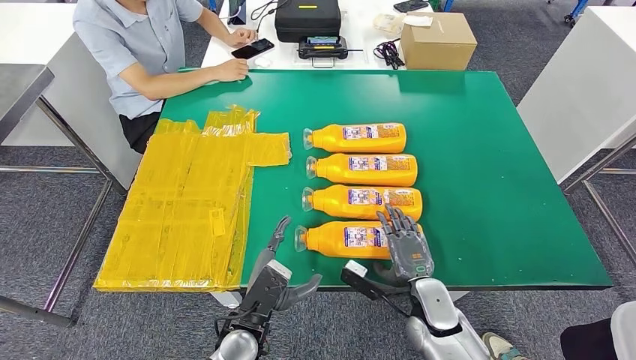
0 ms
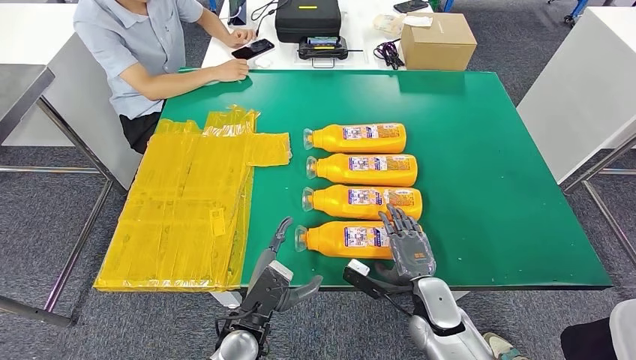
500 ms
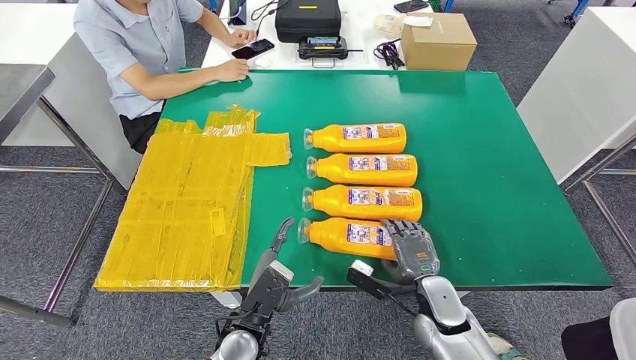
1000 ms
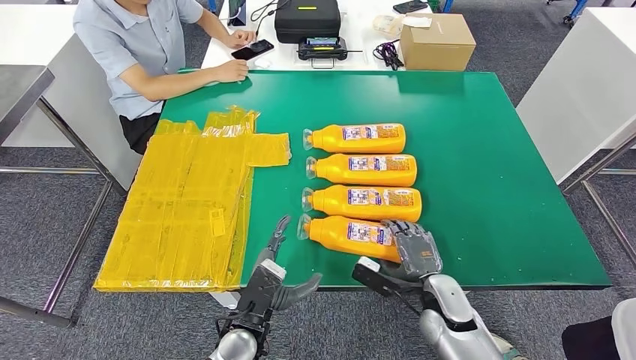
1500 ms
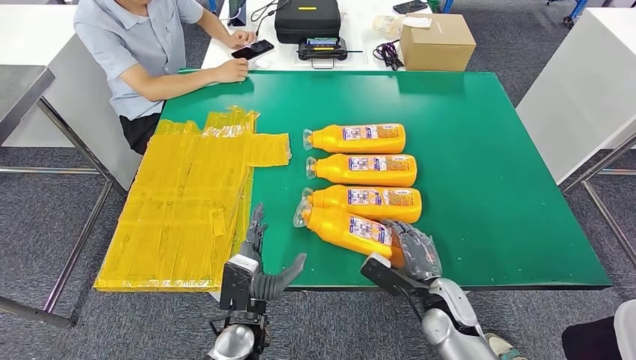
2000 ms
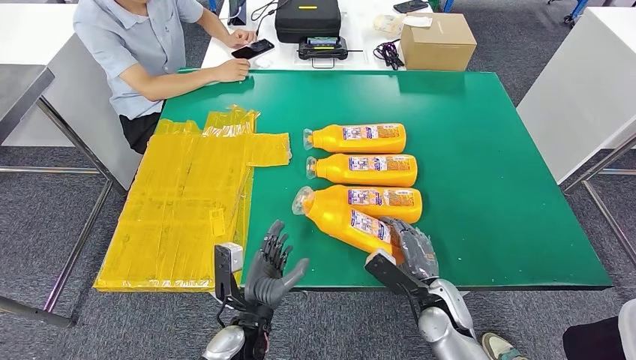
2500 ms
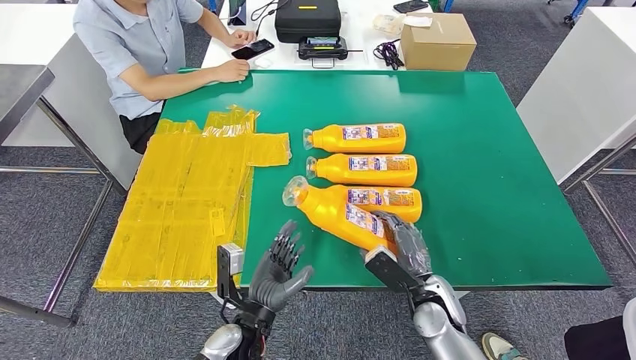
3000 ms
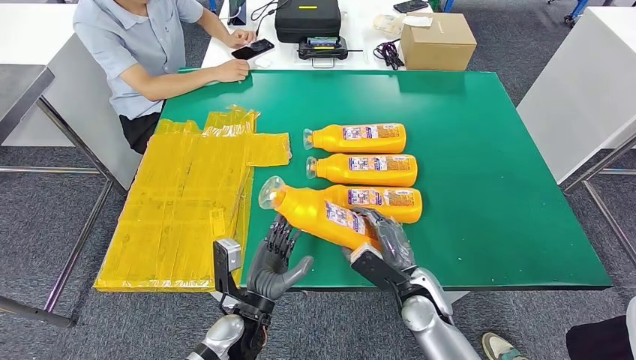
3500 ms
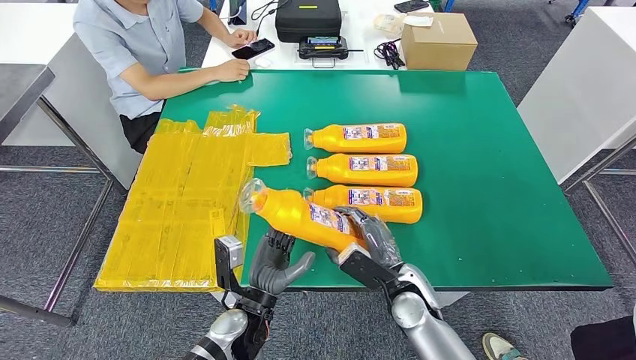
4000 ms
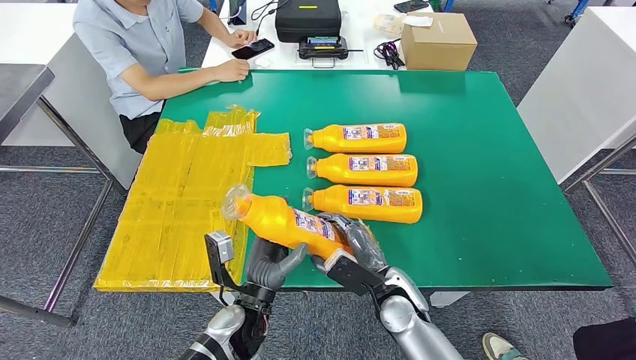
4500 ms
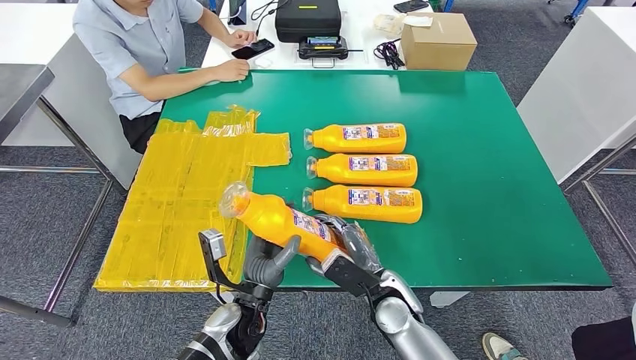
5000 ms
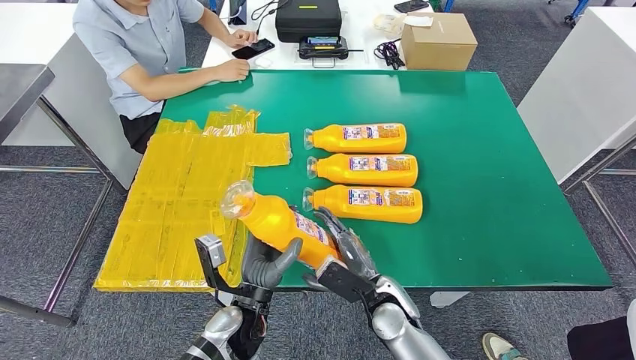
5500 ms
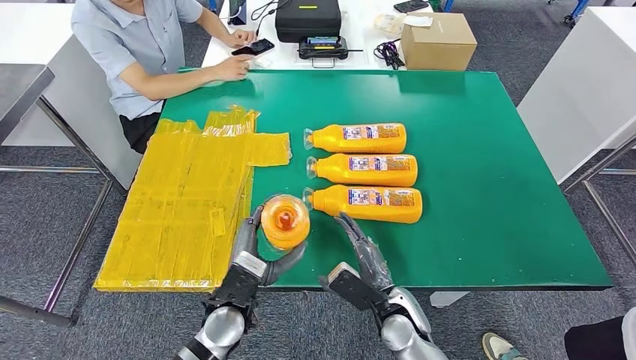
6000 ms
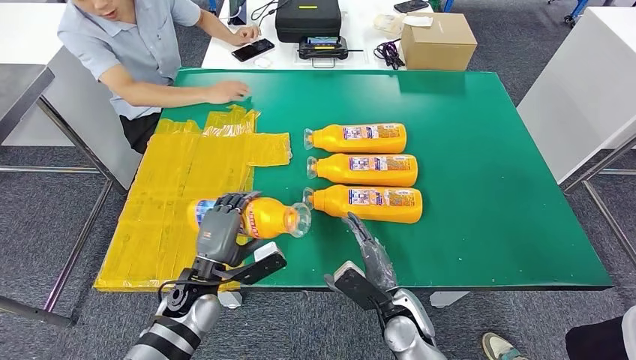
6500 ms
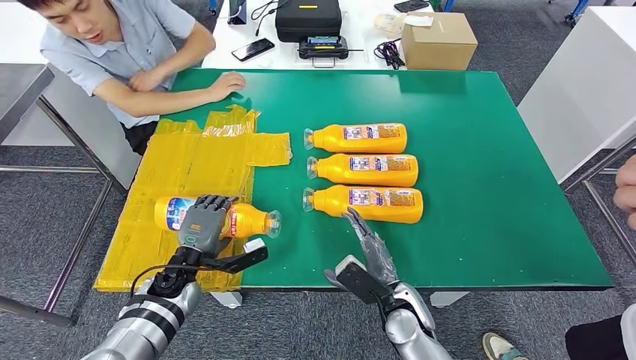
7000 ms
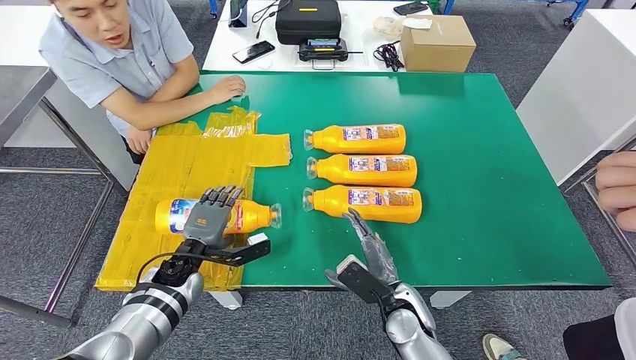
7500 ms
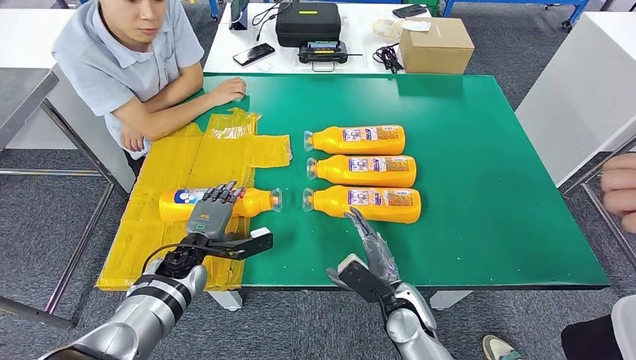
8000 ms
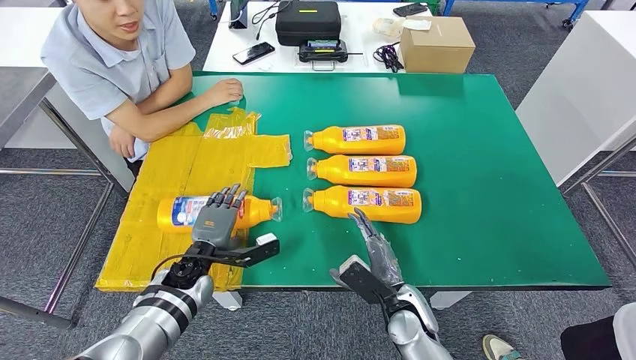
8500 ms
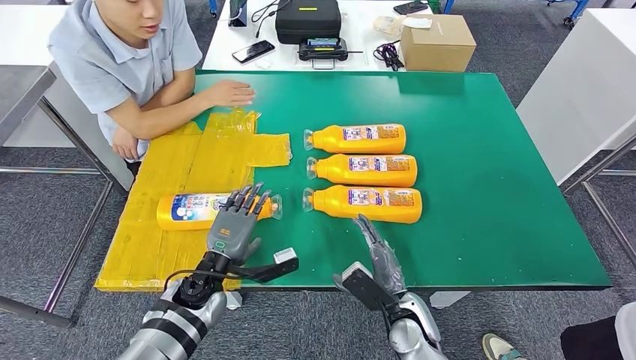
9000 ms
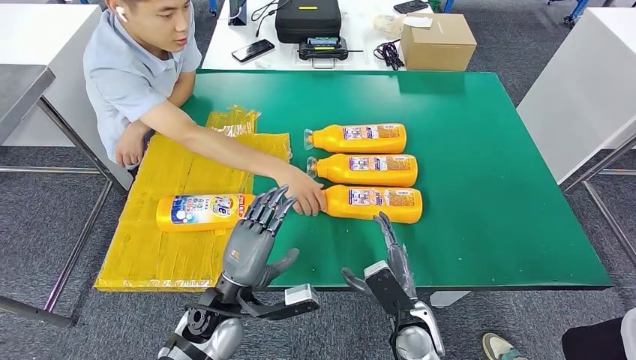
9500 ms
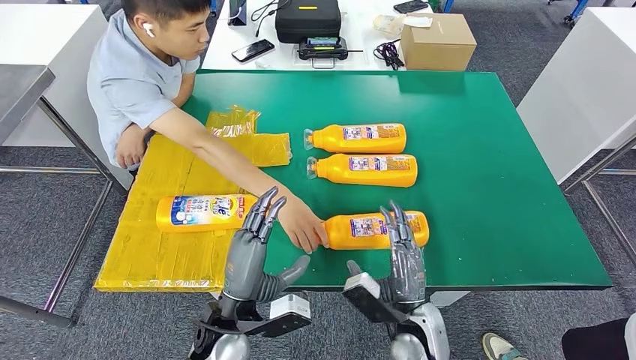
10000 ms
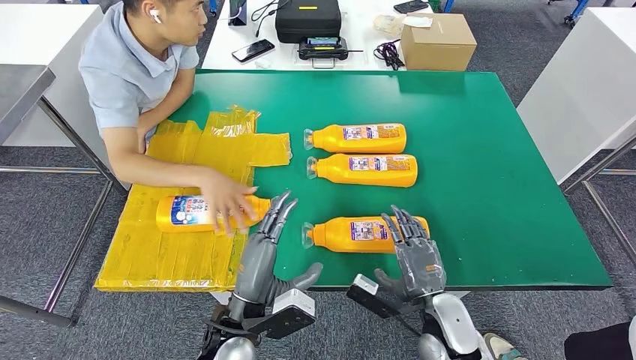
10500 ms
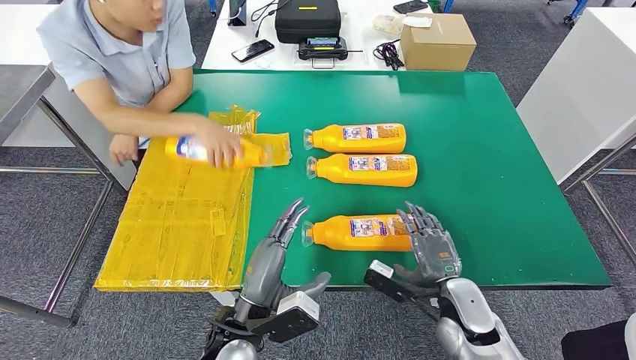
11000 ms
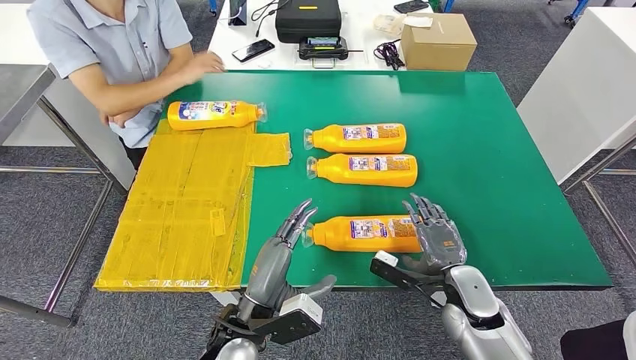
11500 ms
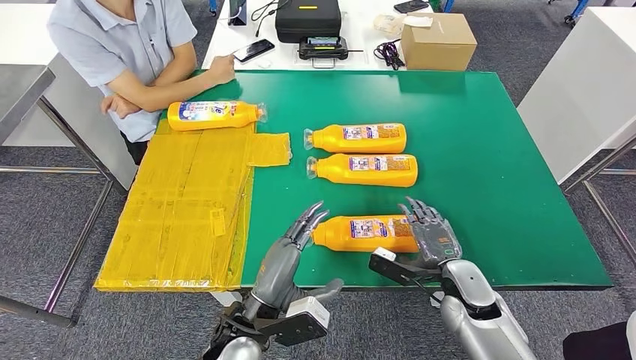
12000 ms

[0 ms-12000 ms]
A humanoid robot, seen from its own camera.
Step, 0 ms to 5000 ms: Take the bottle from the table.
Step, 6500 ms to 9000 ms: Flip the bottle to face forward.
2000 ms to 4000 ms: The right hand shifts roughly 5 cm to the left.

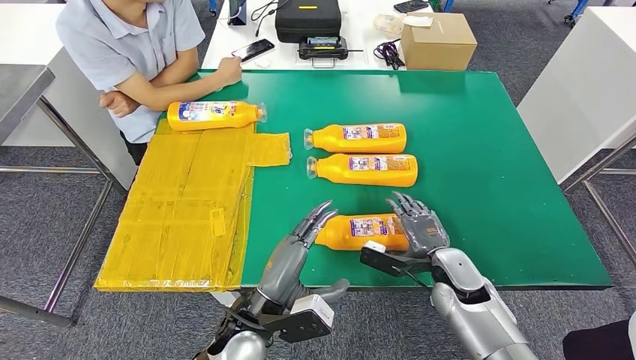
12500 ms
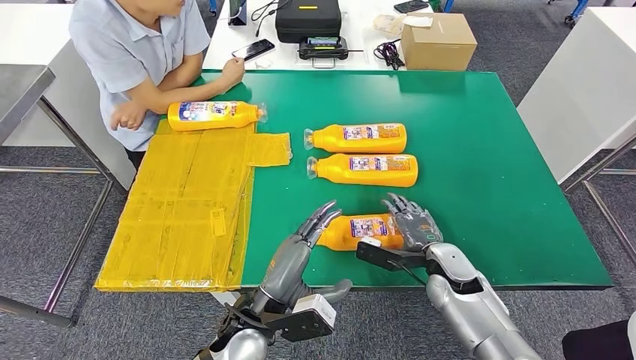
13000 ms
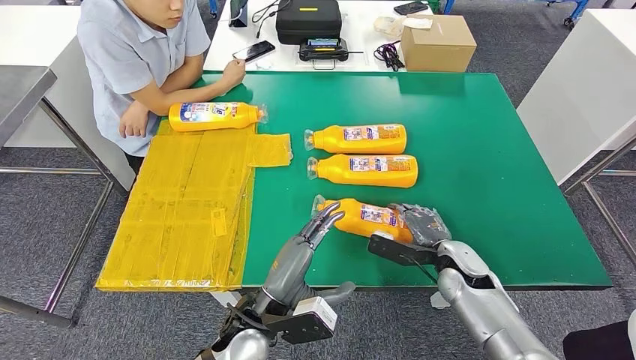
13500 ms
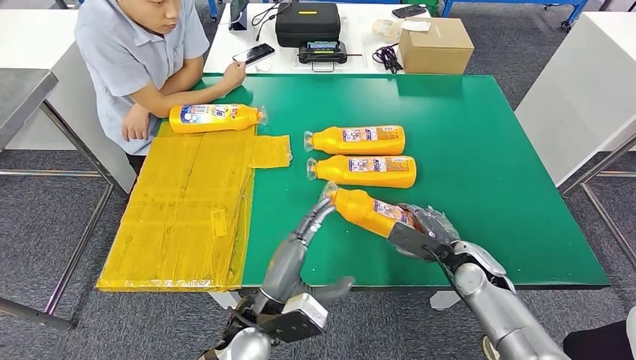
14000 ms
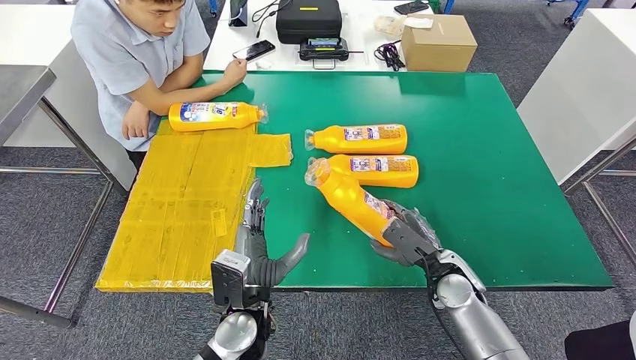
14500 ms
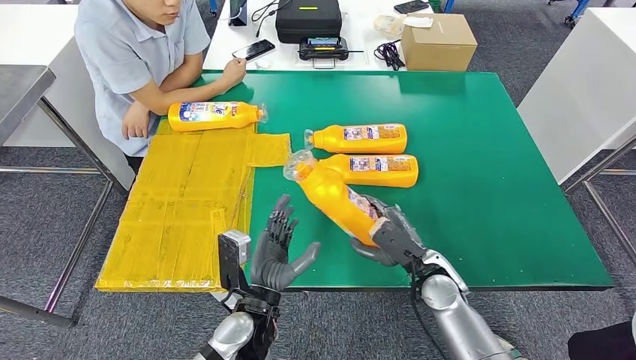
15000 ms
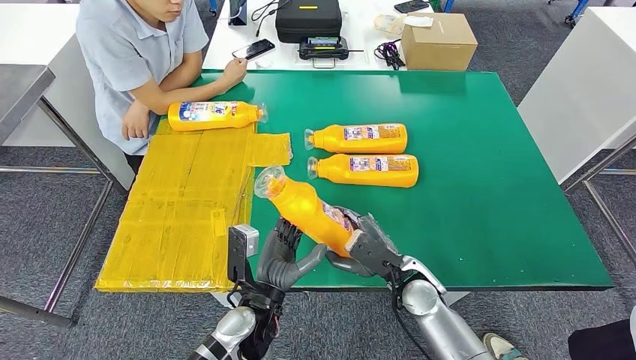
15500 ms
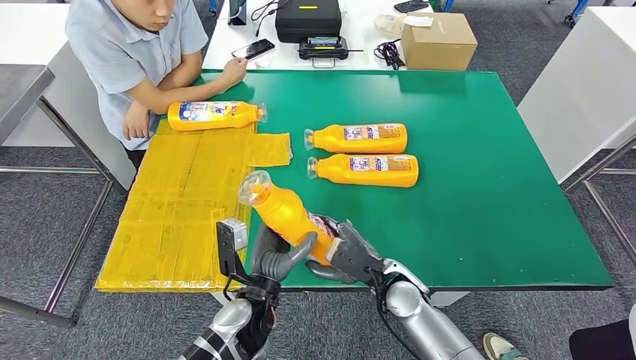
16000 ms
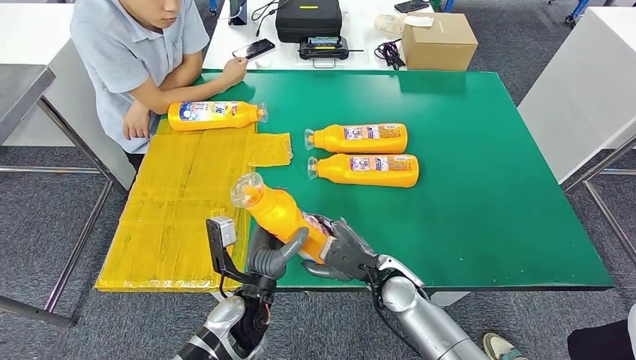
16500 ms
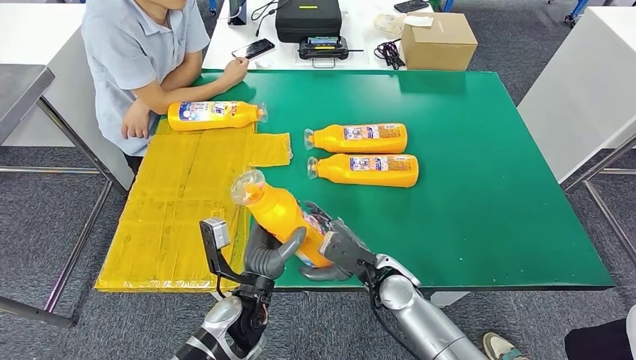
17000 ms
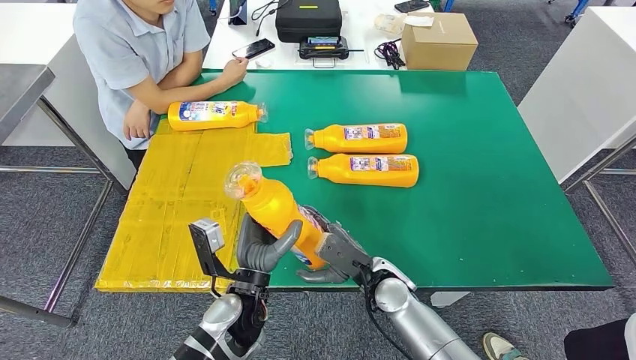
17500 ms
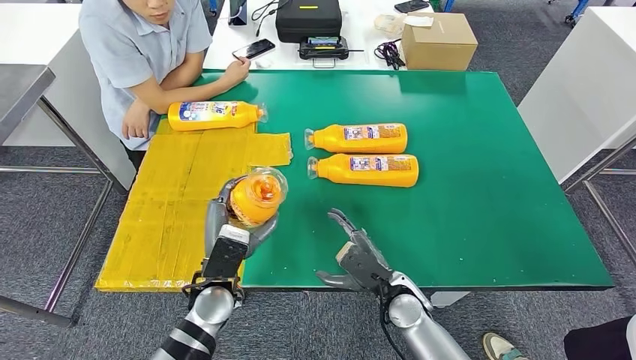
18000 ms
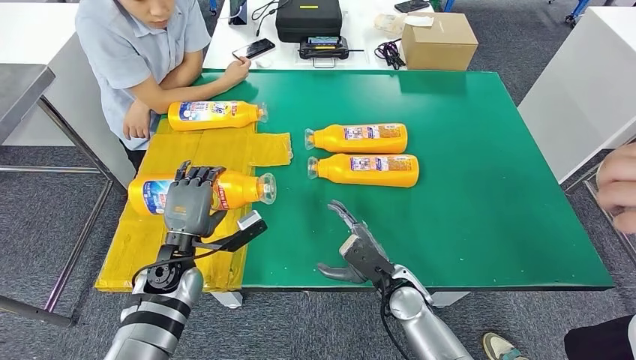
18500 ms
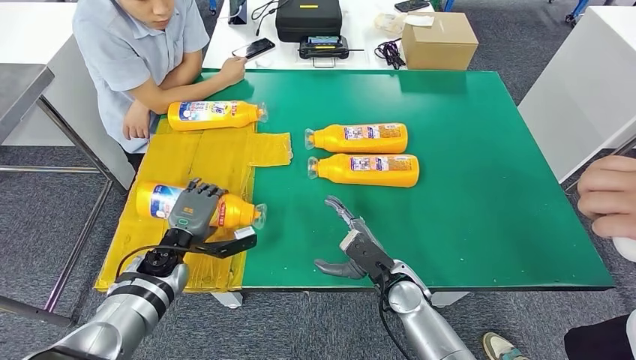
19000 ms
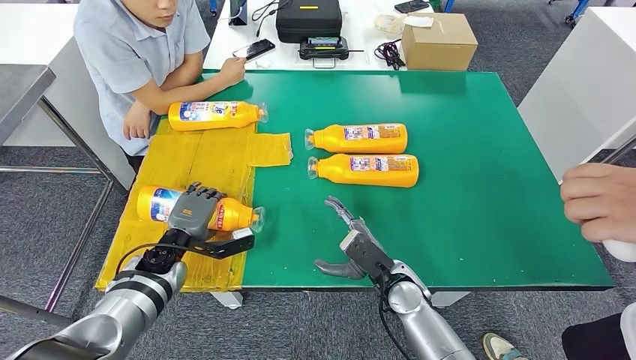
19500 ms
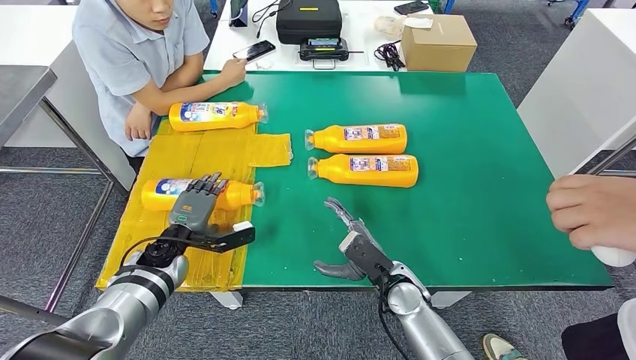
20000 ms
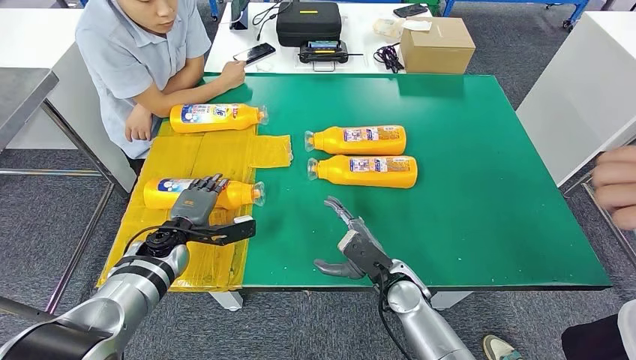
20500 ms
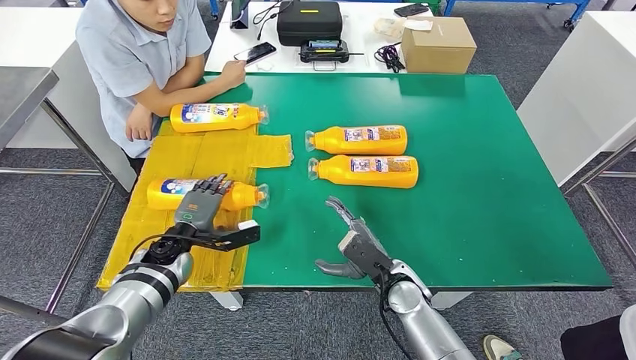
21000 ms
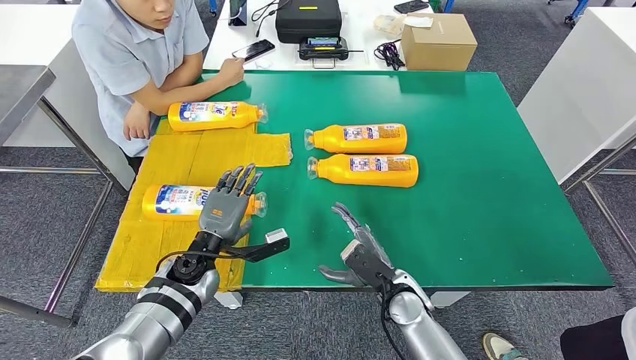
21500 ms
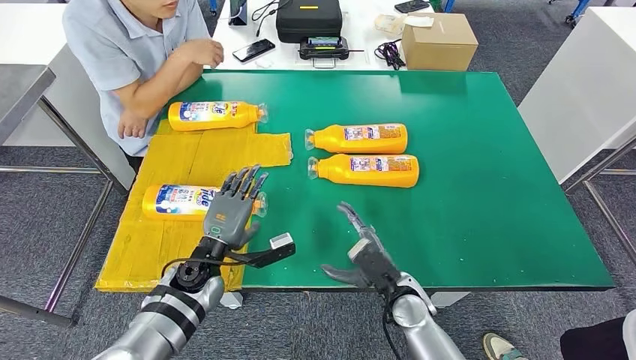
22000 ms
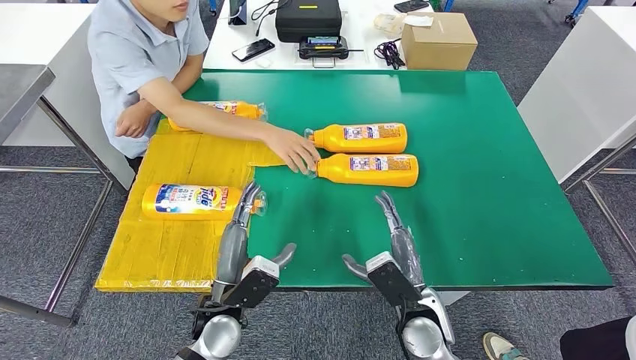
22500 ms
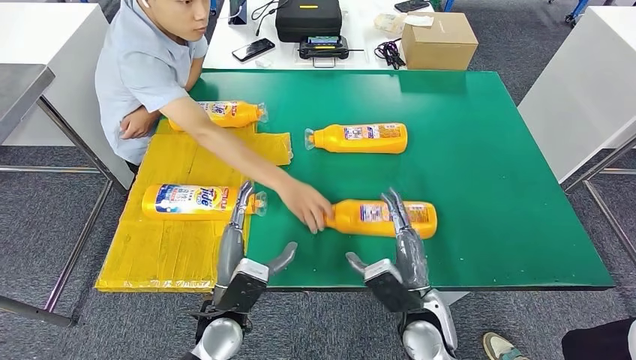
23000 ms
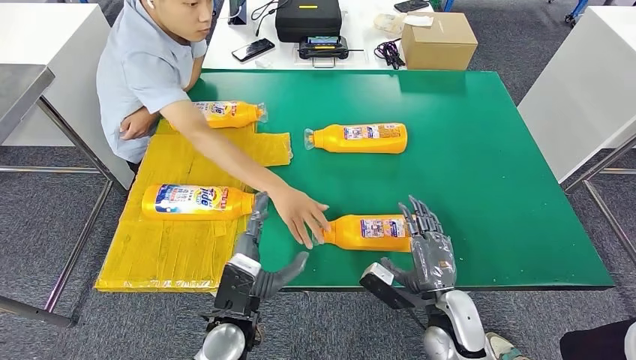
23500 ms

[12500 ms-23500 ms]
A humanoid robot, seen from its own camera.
Step, 12500 ms to 15500 ms: Pick up the bottle from the table.
Step, 16000 ms to 19500 ms: Flip the bottle to face forward.
14500 ms to 16000 ms: The right hand travels to the left by approximately 10 cm.
16000 ms to 18000 ms: The left hand shifts approximately 5 cm to the left.
20000 ms to 21500 ms: The left hand shifts about 5 cm to the right.
